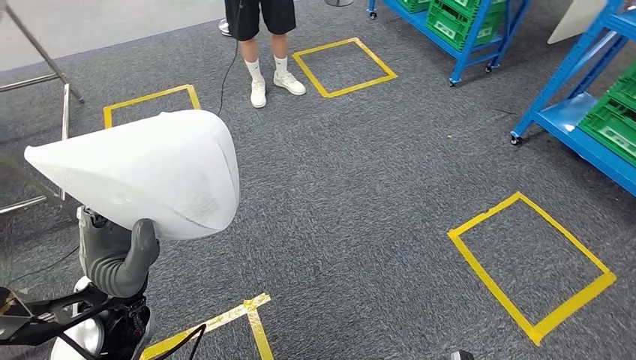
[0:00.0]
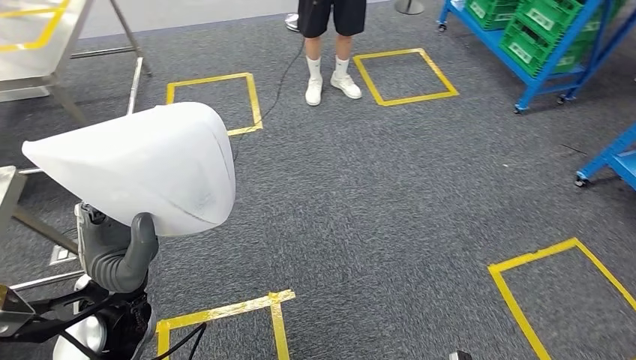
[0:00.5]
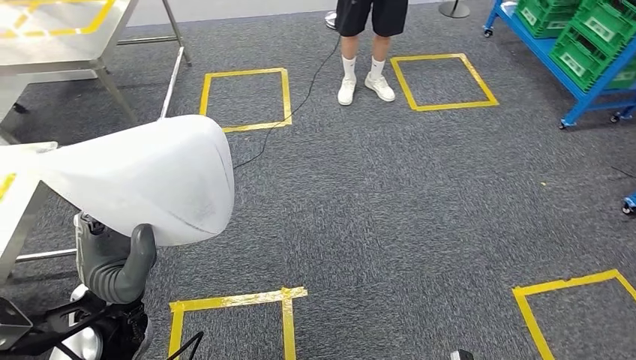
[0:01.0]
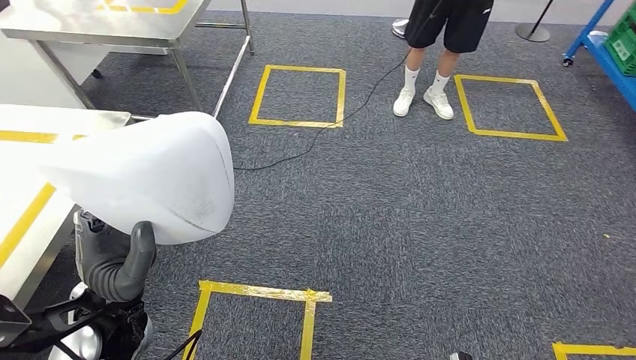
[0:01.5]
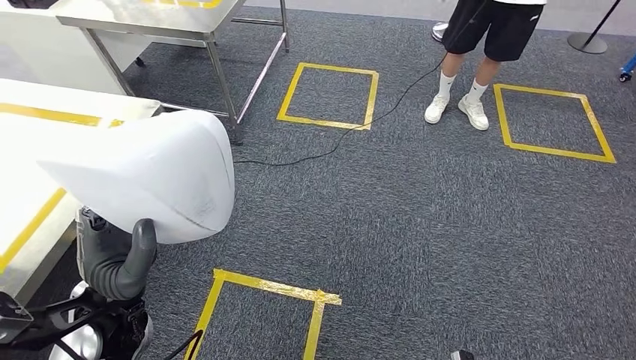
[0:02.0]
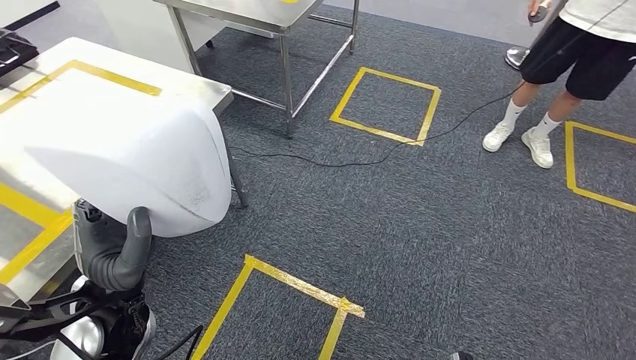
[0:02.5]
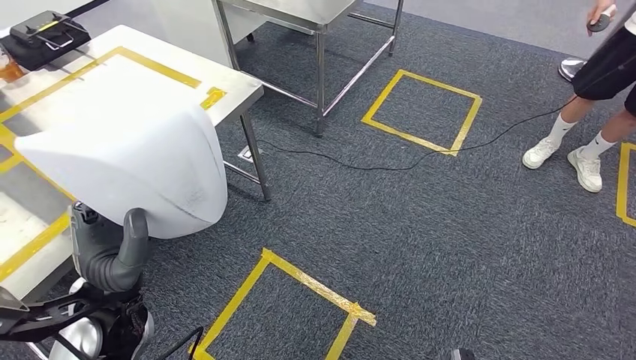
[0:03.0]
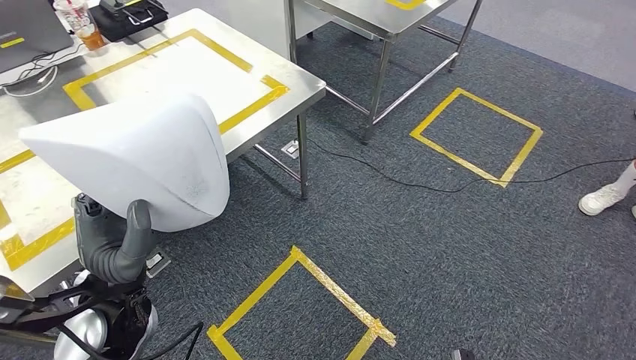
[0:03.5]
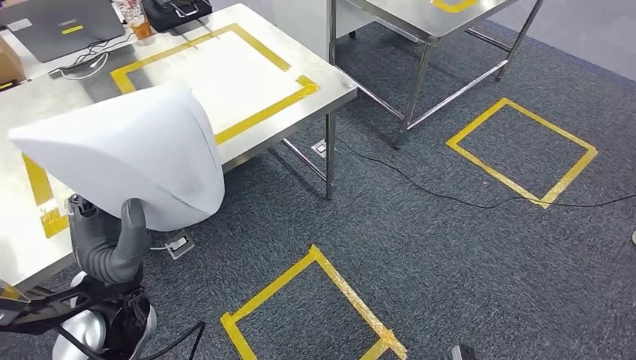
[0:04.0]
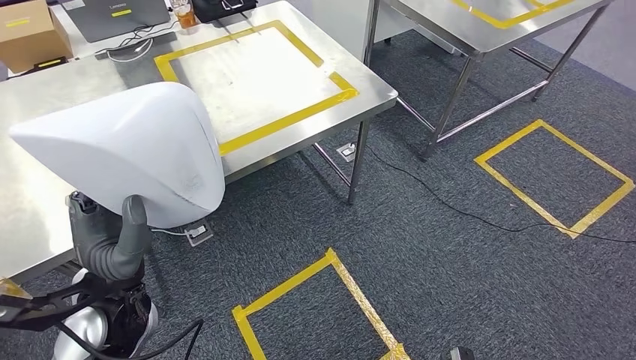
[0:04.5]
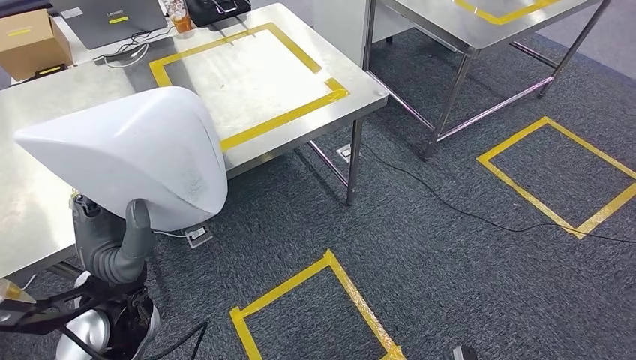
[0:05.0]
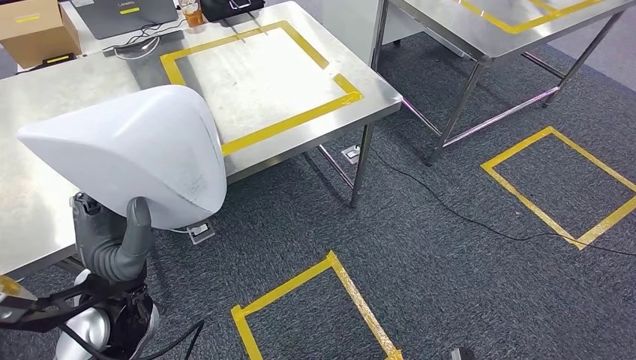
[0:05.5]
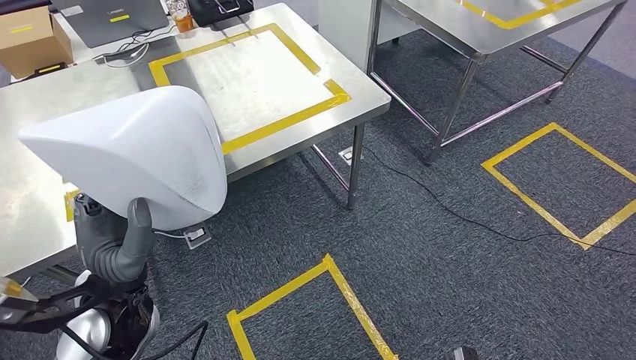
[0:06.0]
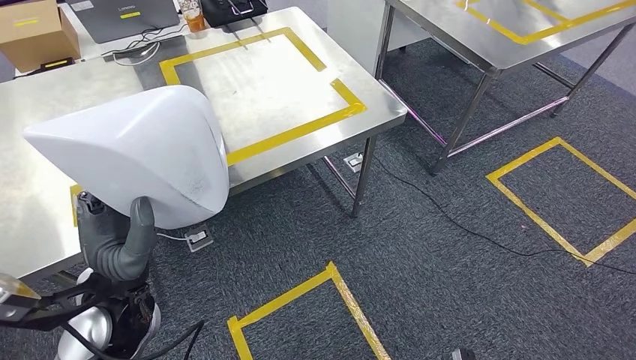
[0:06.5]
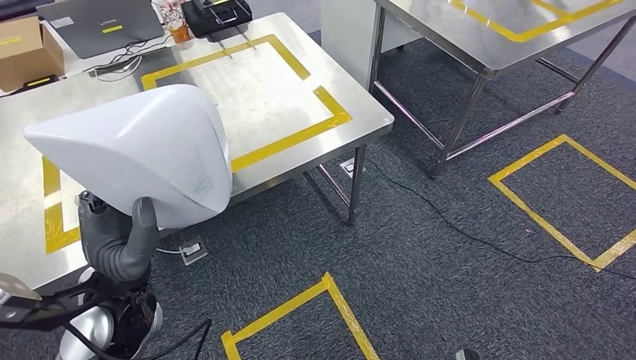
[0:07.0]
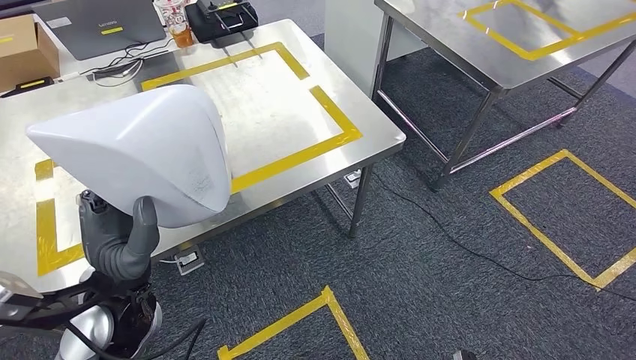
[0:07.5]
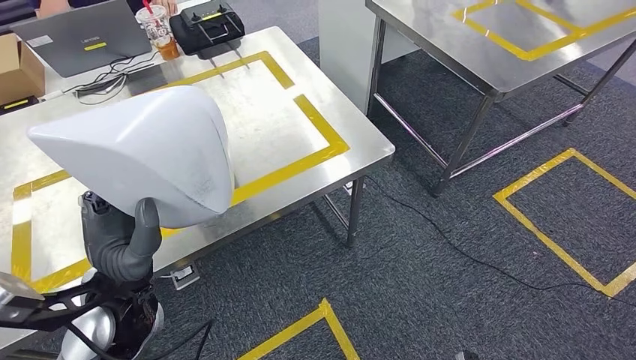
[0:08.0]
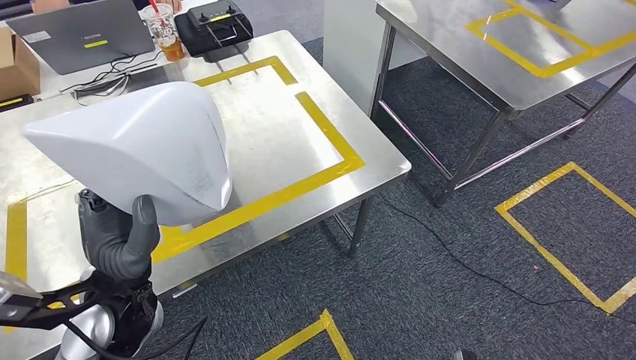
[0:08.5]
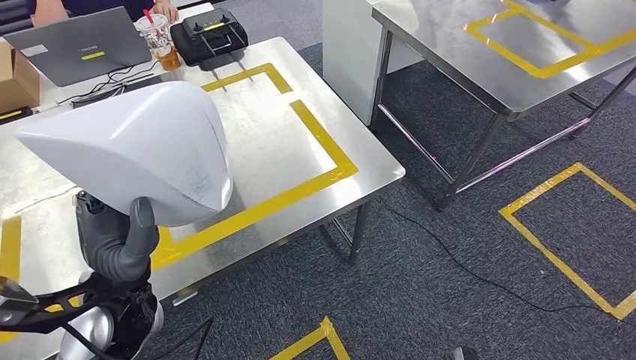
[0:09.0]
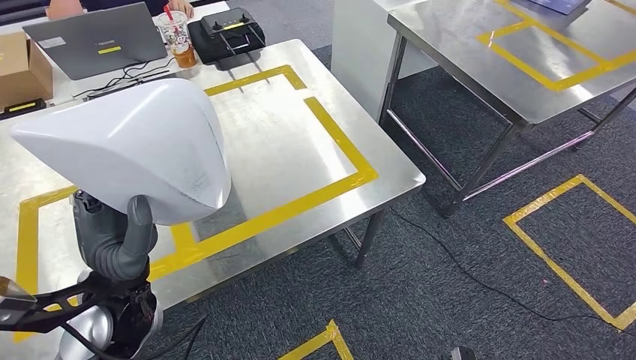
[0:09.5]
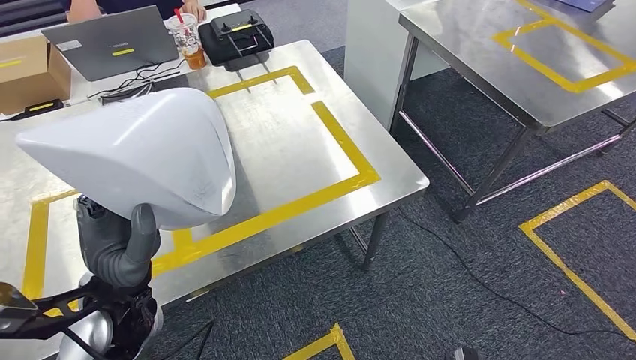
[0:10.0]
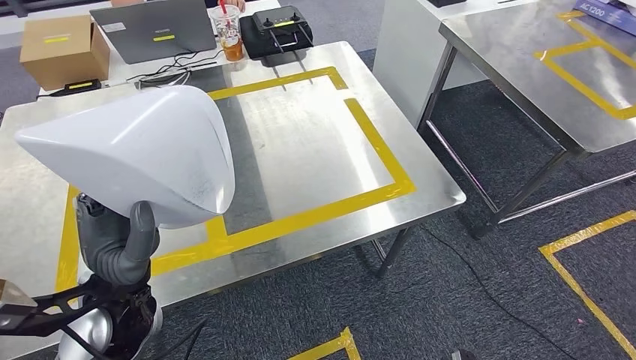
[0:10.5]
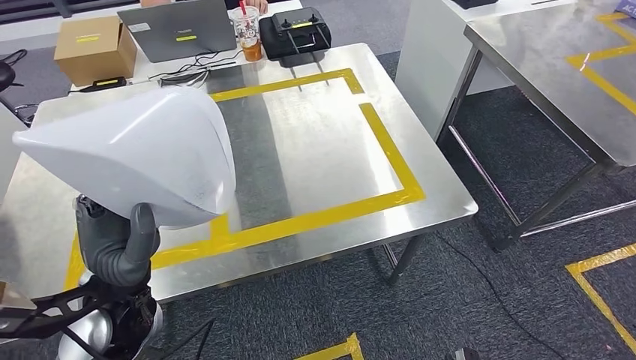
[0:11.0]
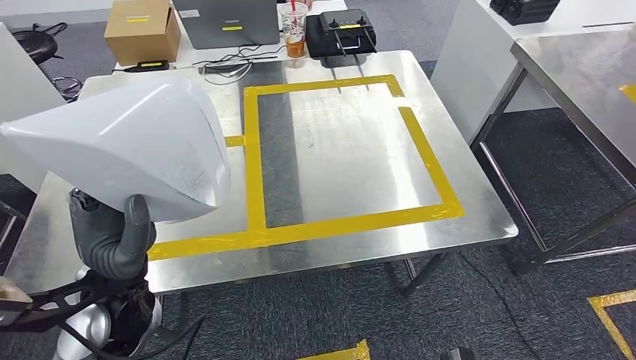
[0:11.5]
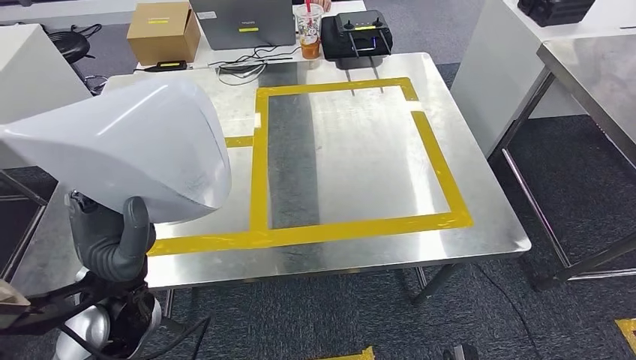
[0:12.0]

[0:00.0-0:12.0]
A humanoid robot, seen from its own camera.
Step, 0:00.0 to 0:04.0: Move the small component to the workbench.

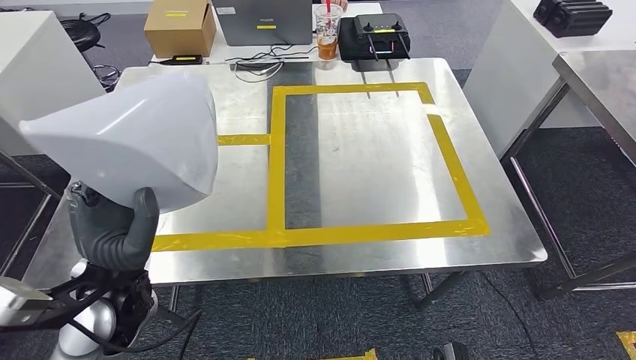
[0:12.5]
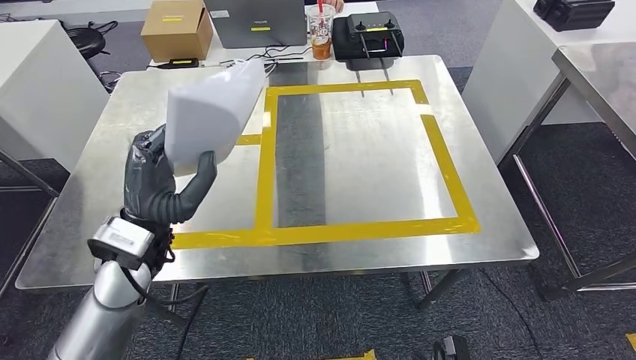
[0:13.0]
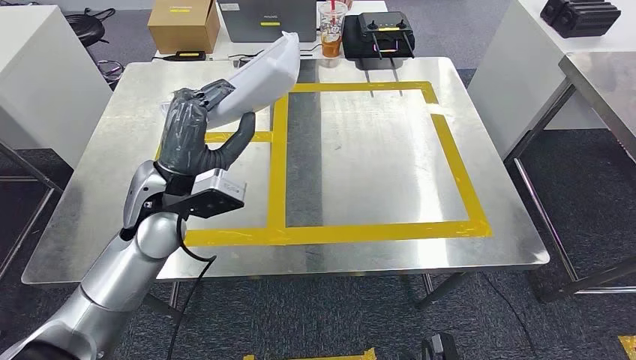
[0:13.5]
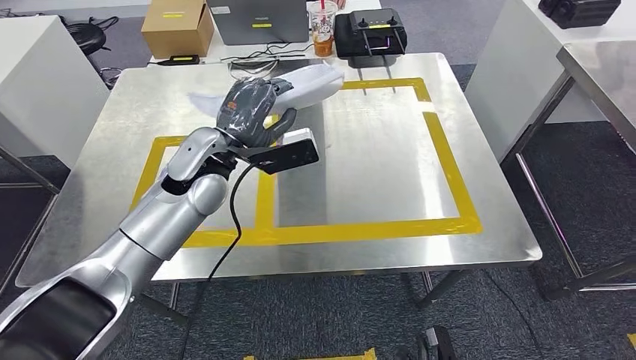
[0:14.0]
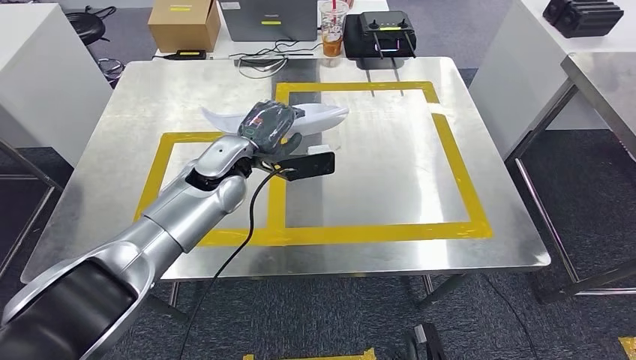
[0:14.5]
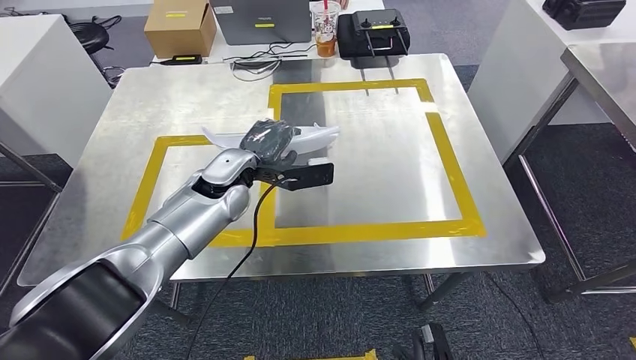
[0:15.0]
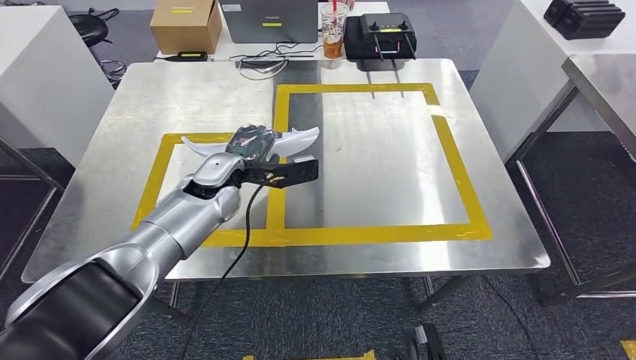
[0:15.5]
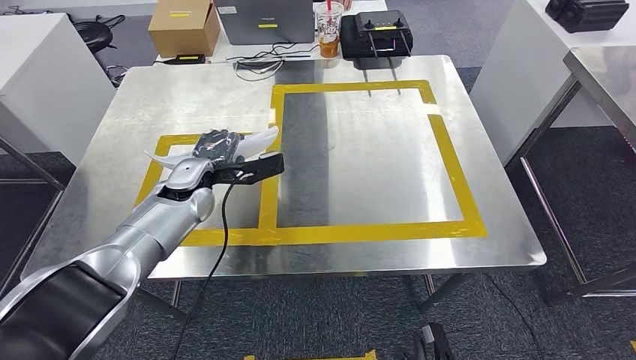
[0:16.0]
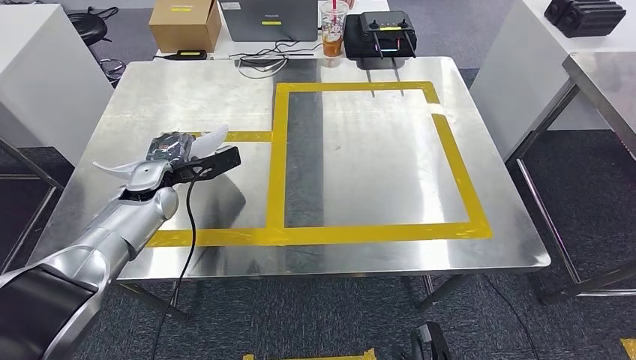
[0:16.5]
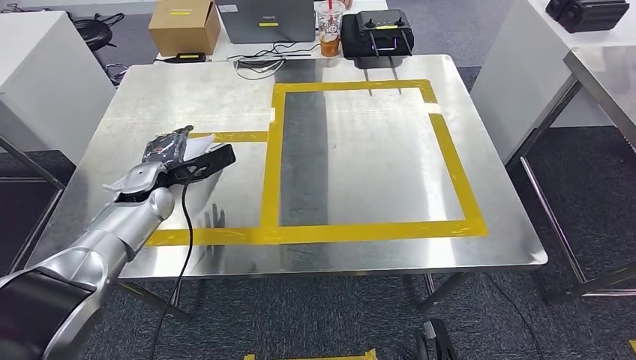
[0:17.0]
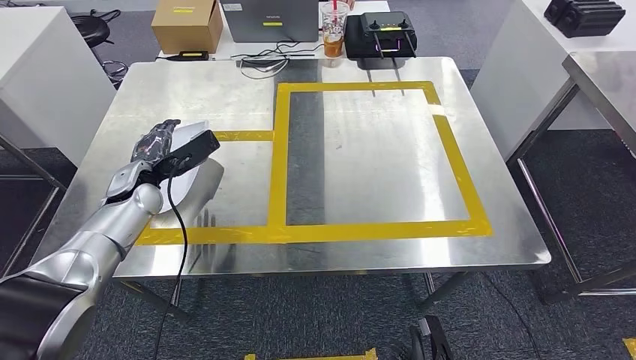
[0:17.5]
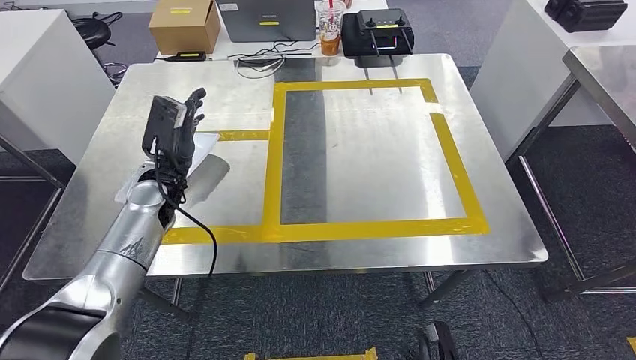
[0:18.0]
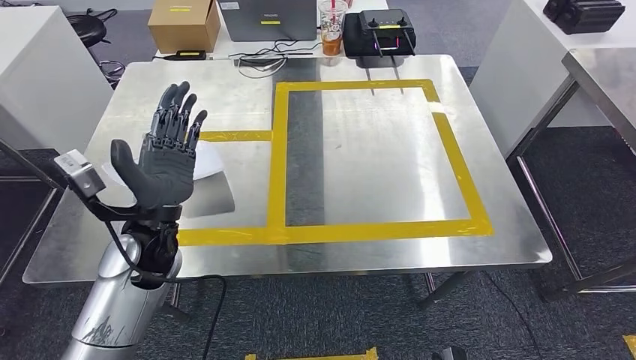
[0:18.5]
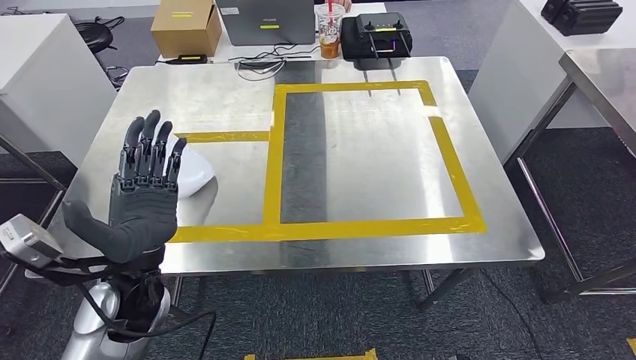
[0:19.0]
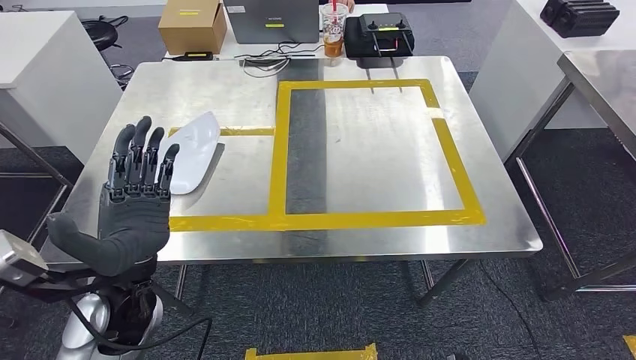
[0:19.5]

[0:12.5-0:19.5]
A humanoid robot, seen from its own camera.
Step, 0:12.5 to 0:18.5: Insert the small component into the corresponding slot on the workbench.
Step, 0:19.0 to 0:19.5: Move to the initial position at the workbench.
